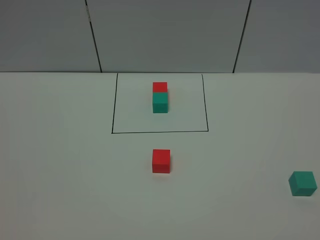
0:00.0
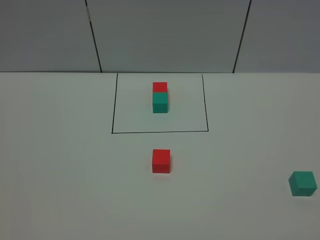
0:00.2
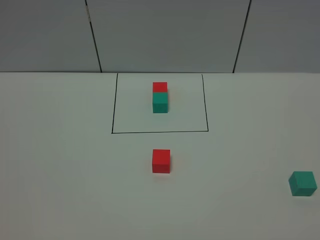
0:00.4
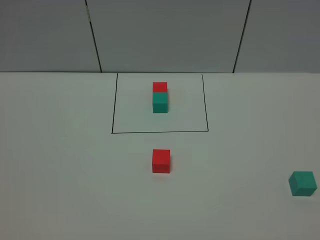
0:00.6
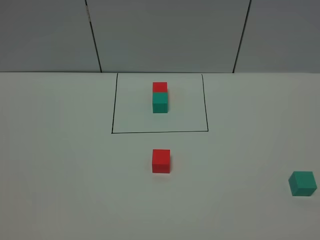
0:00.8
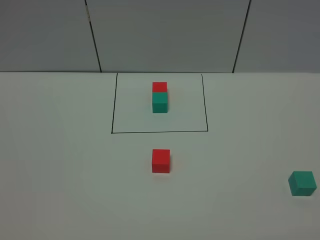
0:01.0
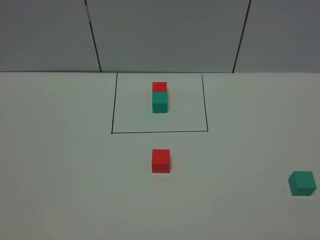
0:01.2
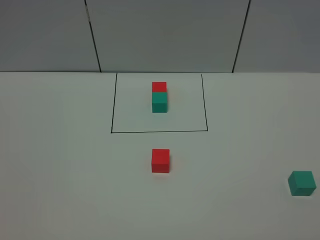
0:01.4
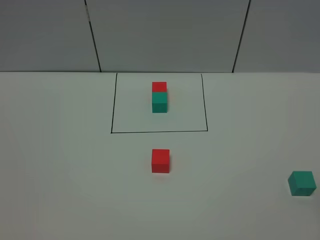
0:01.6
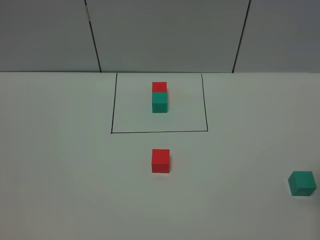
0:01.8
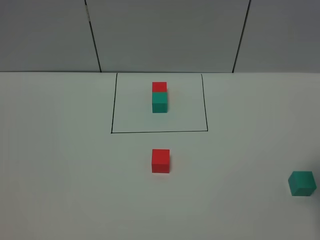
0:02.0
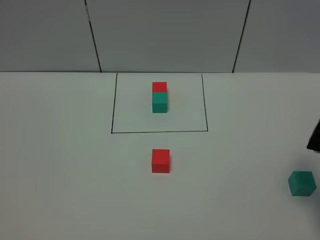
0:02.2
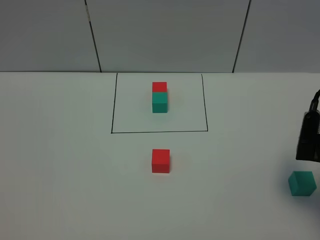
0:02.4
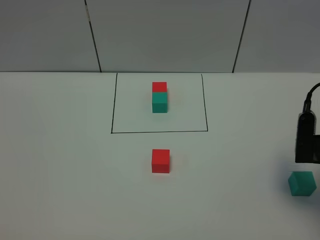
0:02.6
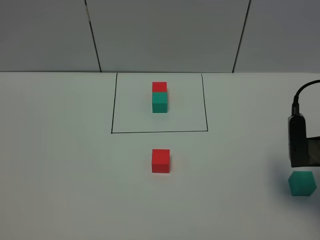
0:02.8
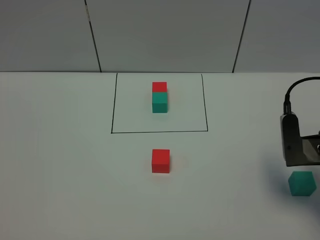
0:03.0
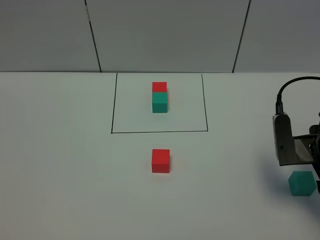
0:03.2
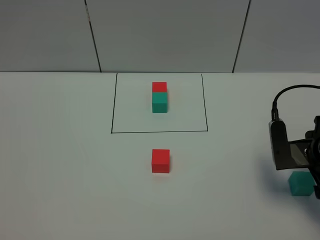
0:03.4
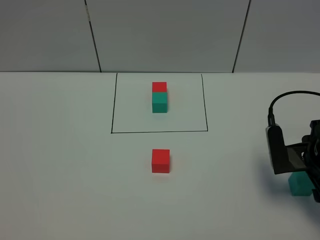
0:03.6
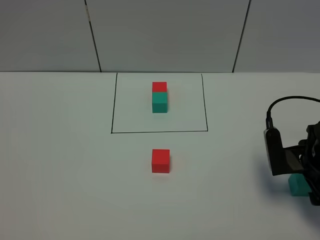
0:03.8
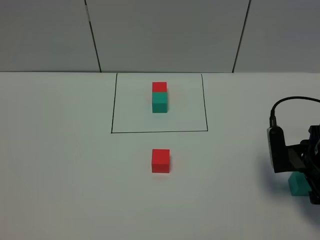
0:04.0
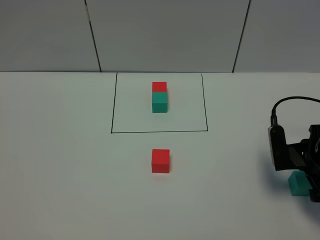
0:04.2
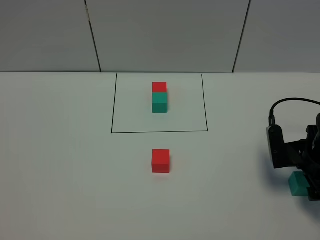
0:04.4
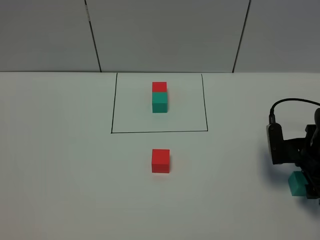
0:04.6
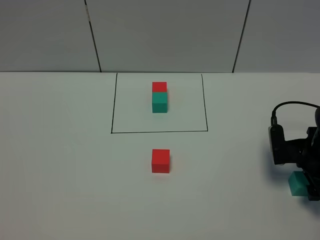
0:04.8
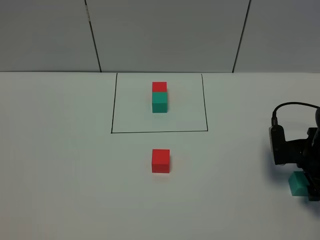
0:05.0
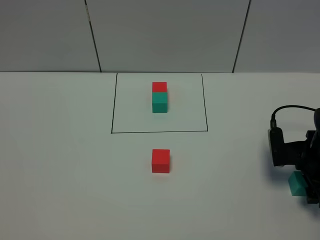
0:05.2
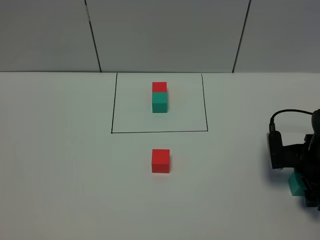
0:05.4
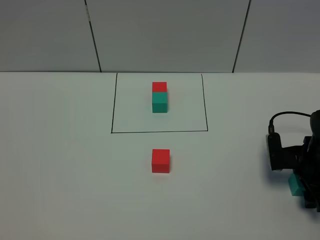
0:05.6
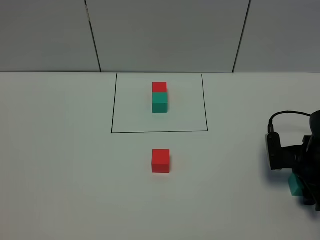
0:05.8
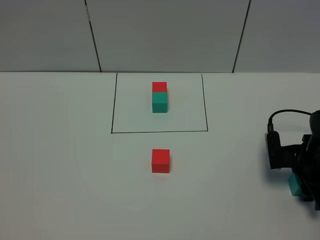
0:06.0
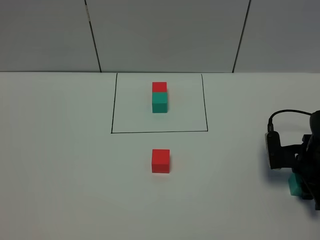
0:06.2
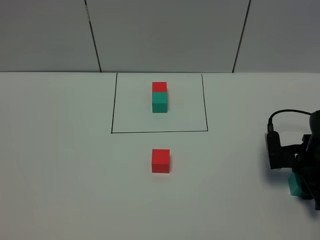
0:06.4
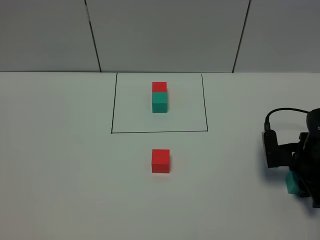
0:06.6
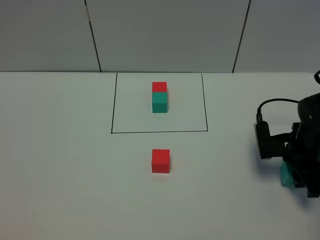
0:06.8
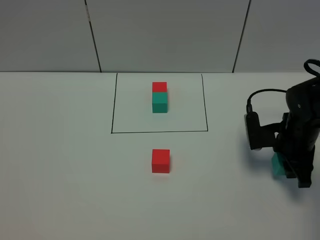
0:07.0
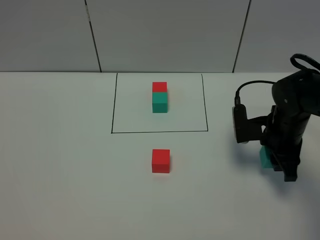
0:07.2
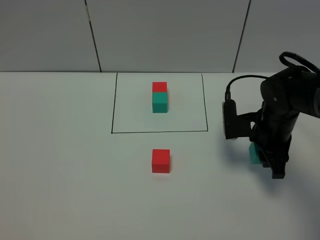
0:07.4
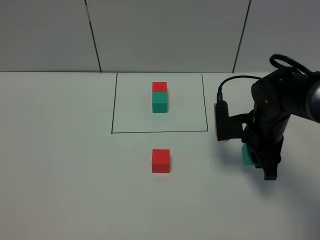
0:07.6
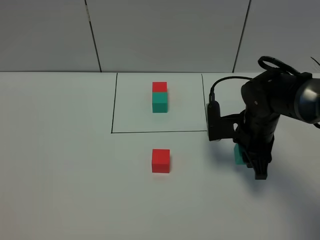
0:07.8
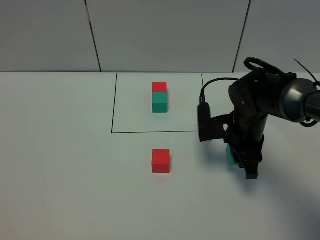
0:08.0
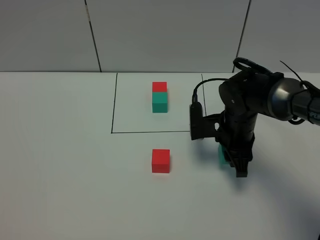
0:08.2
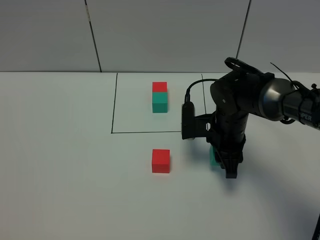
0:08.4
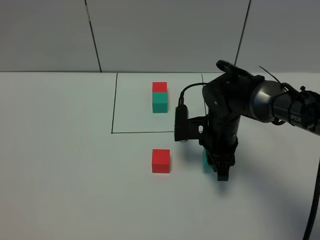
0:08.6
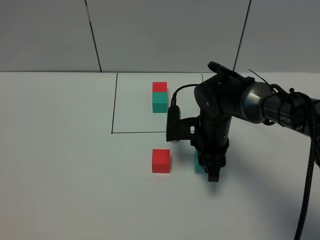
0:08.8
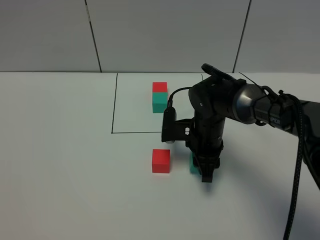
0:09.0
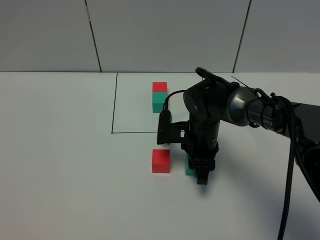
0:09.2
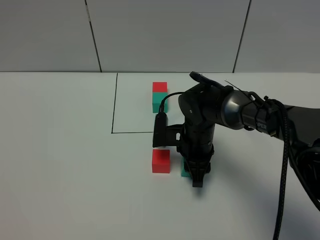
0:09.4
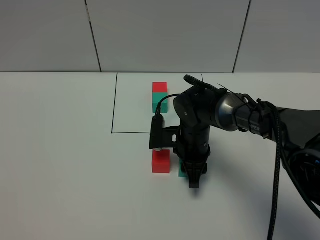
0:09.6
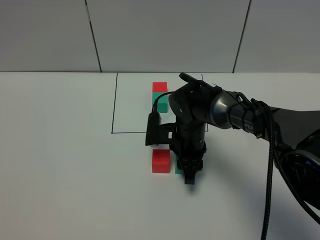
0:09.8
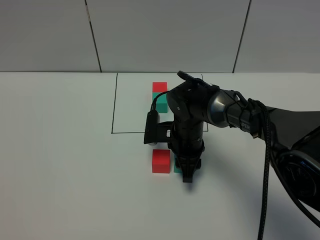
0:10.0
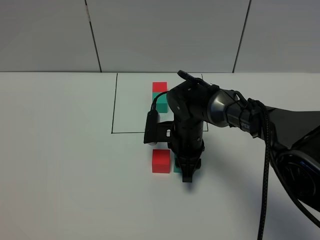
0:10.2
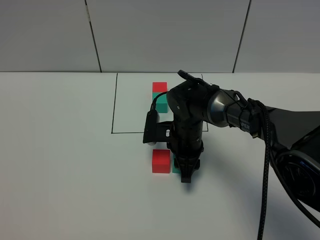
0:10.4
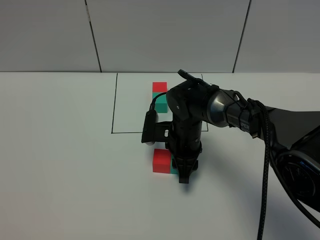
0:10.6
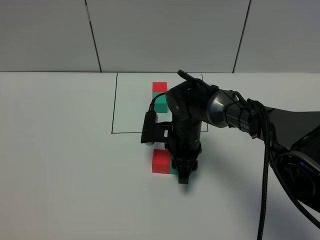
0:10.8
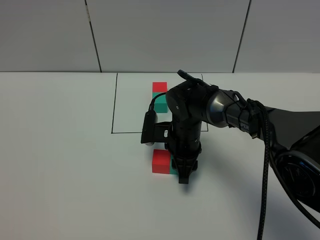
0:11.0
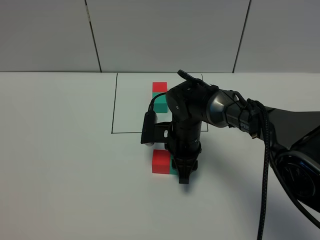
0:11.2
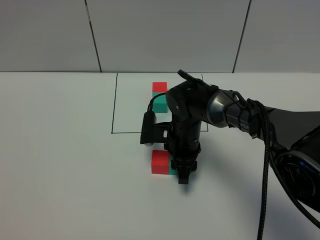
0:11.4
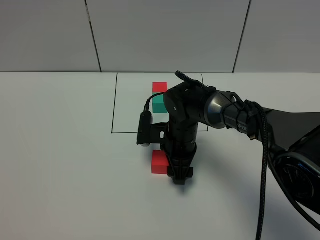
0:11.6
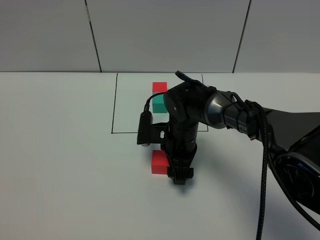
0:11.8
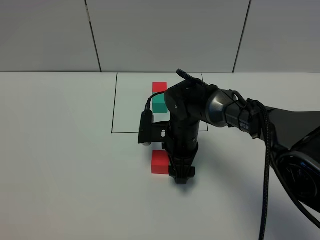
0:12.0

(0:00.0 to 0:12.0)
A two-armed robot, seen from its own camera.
Task of the whole recording: According to the building block template in front, assemble the scattered blocks together.
0:01.6 - 0:03.0: The right gripper goes about 10 cm forward and downward.
0:03.0 - 0:04.4: The right gripper is displaced downward by roughly 5 cm.
0:04.4 - 0:06.0: The right gripper closes its fingers.
0:06.0 - 0:07.6: The right gripper is displaced to the left and upward by about 10 cm.
0:07.6 - 0:09.0: The right gripper travels to the left by about 10 cm.
0:09.0 - 0:10.4: The grippers stay close to where they were, moving slightly.
0:10.4 - 0:12.0: The right gripper opens its fingers.

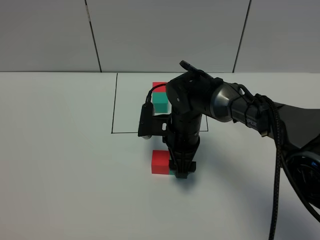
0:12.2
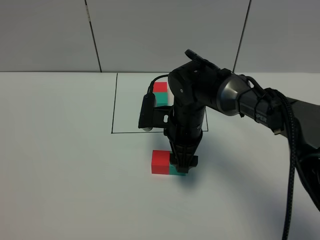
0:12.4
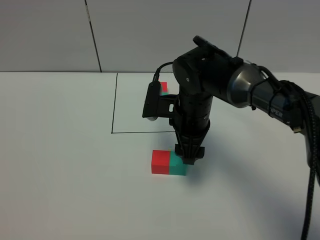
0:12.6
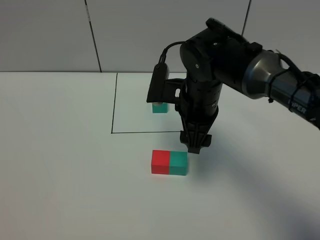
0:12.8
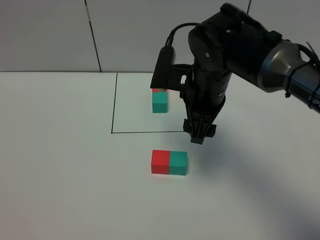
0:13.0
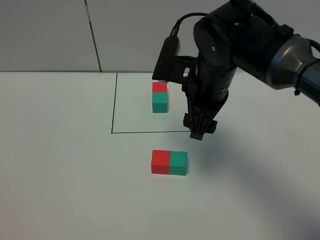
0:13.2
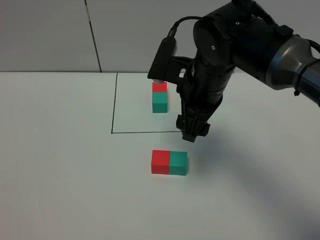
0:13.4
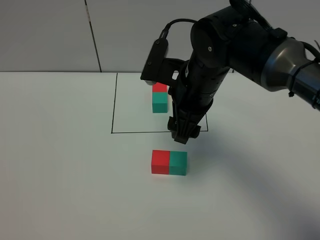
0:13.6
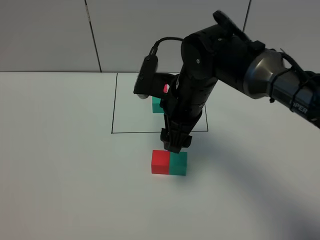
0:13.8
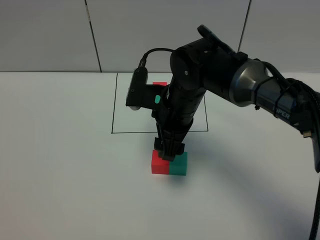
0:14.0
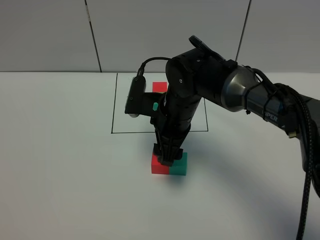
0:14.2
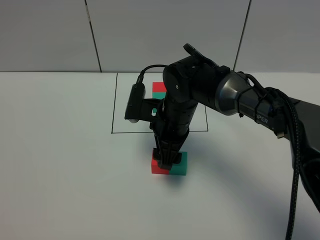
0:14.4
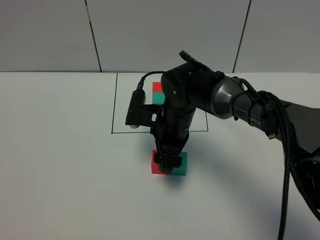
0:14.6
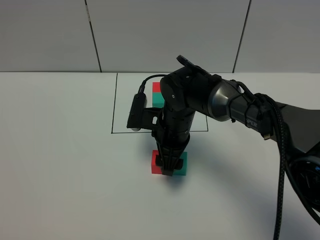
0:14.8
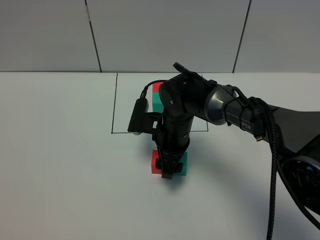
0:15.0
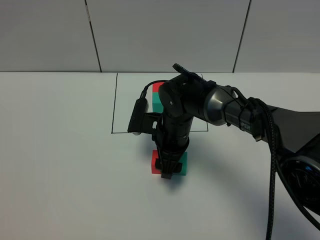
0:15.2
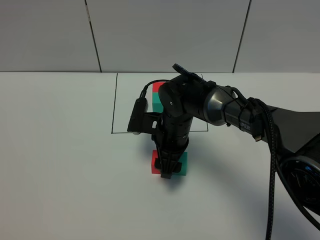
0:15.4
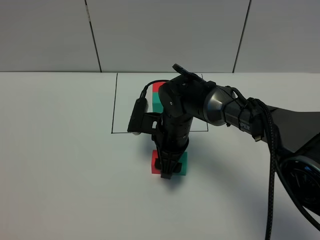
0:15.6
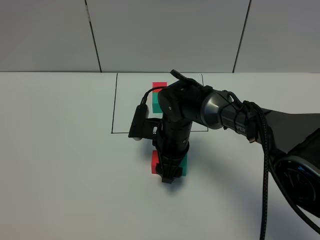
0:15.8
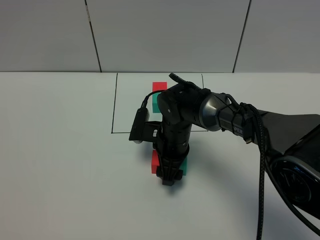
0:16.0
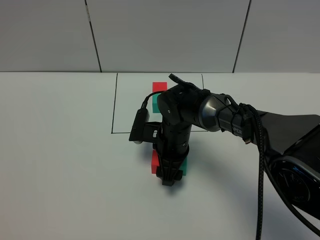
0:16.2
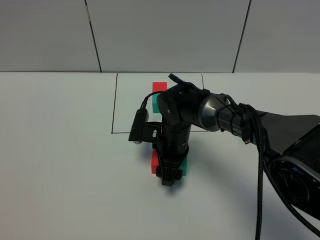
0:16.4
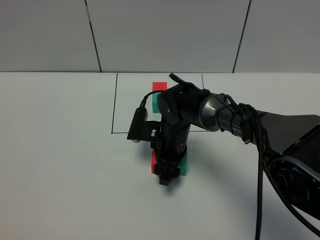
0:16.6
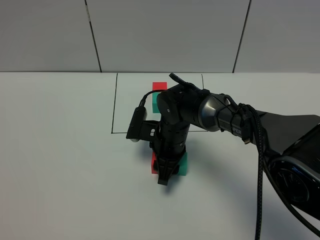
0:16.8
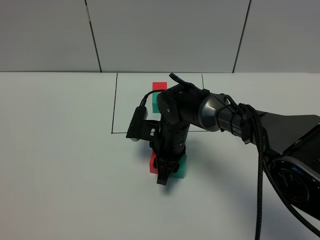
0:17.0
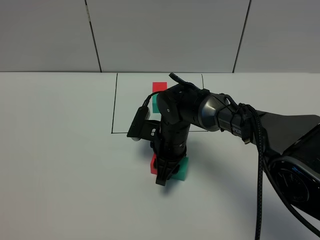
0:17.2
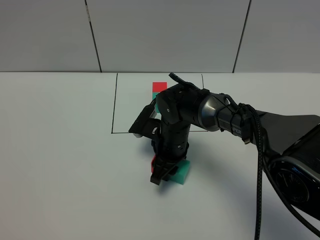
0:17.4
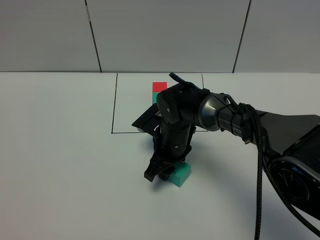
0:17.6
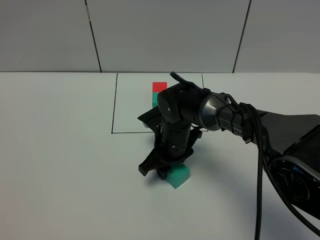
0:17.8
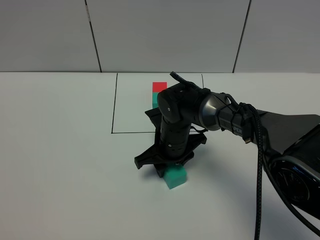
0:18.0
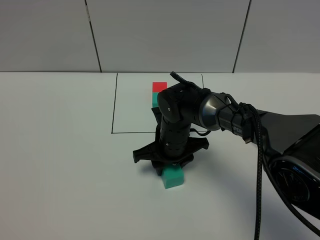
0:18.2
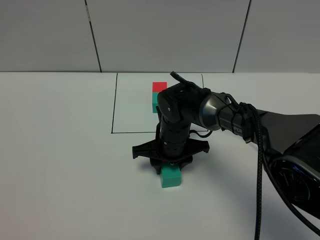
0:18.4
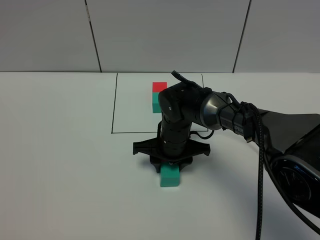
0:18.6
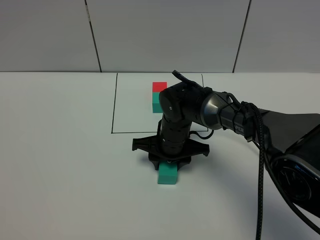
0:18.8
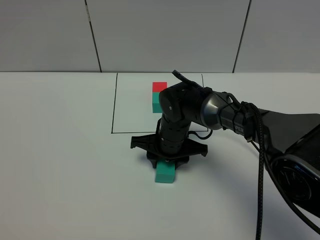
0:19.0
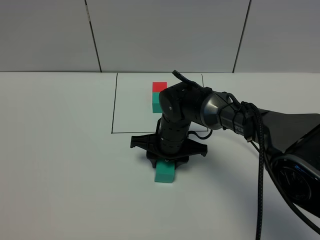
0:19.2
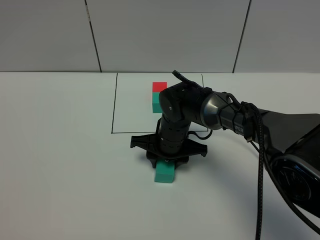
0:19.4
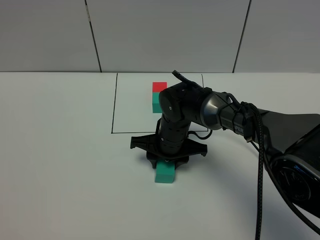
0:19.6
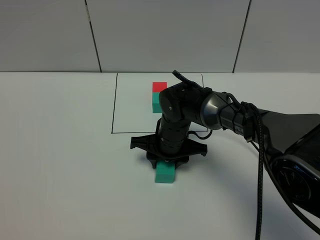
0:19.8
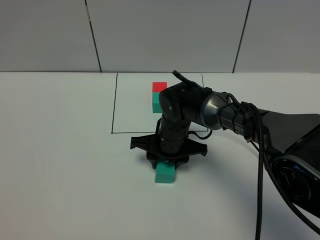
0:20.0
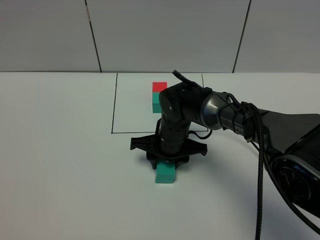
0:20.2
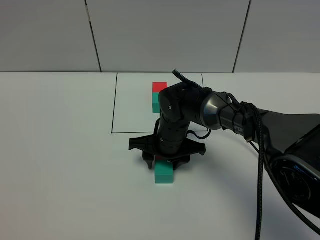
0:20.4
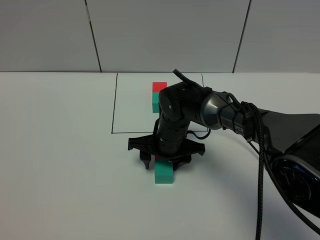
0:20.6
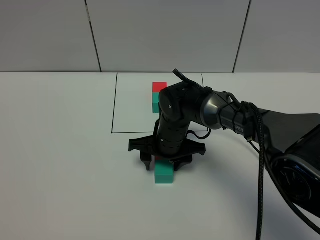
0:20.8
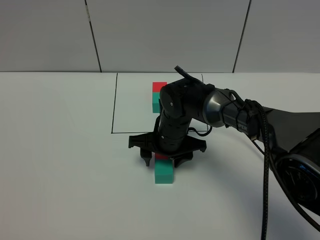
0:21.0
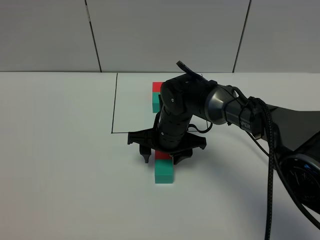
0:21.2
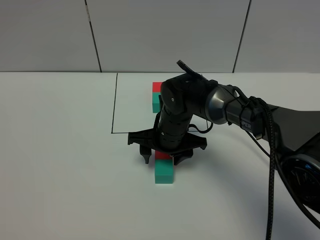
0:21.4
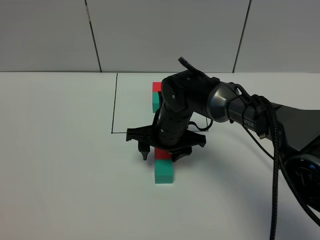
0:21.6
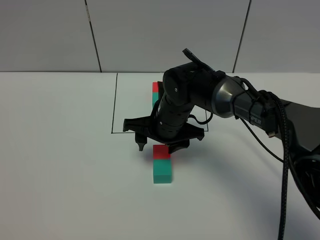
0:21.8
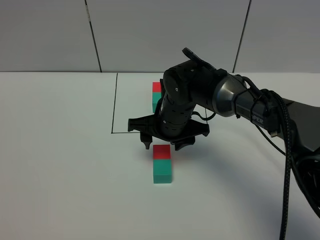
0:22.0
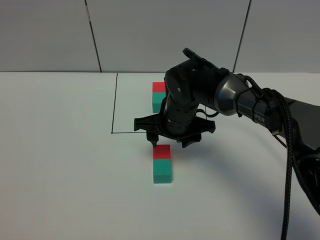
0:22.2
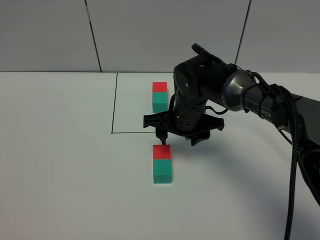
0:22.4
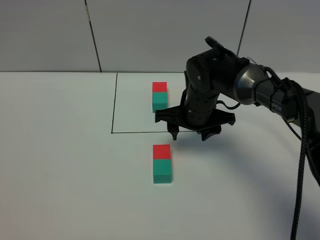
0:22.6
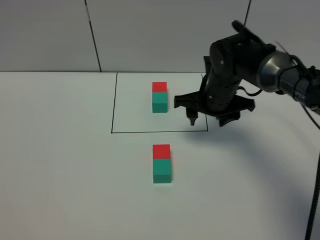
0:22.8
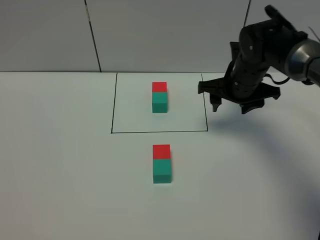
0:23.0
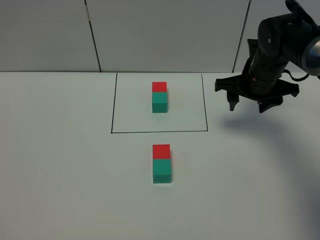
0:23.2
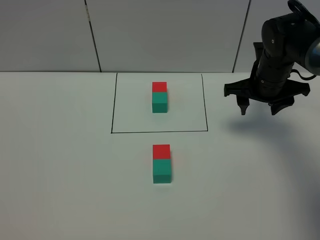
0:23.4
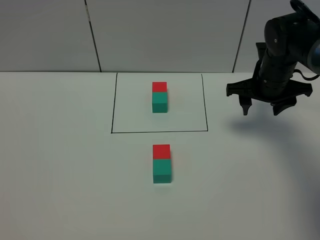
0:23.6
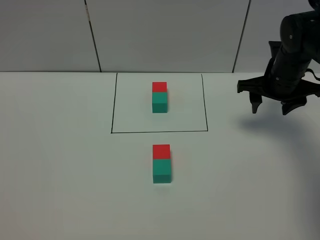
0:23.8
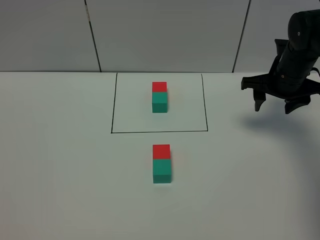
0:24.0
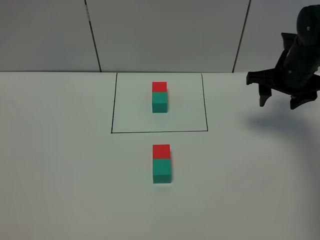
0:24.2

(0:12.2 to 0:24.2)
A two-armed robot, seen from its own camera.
Task of the whole recording: According to the building block template in front, assemble the scattered blocks together.
Step, 0:12.4 - 0:21.4: Adjust the pose of the building blocks.
0:12.2 - 0:13.8: The right gripper is displaced upward by some 10 cm.
0:13.8 - 0:15.2: The right gripper shifts some 10 cm downward.
0:15.2 - 0:16.6: The grippers stay close to where they were, moving slightly.
0:16.6 - 0:18.2: The right gripper closes.
0:18.2 - 0:19.8: The grippers stay close to where they were, moving slightly.
0:19.8 - 0:21.2: The right gripper opens up.
0:21.2 - 0:22.6: The right gripper is displaced to the right by some 5 cm.
0:22.6 - 0:24.2: The right gripper moves to the right, about 20 cm.
